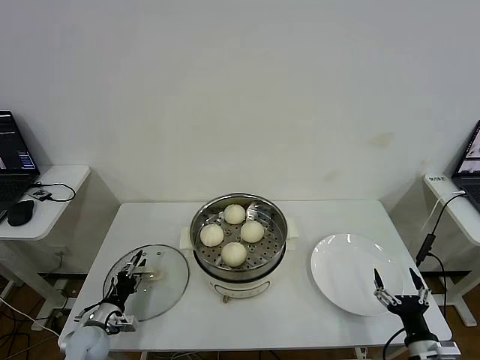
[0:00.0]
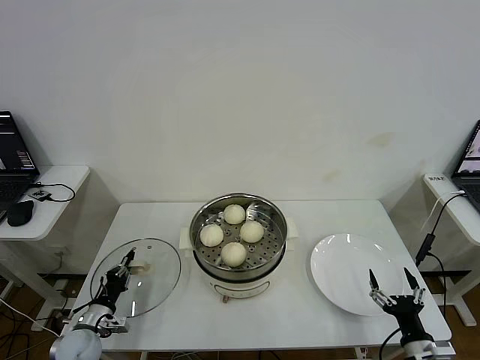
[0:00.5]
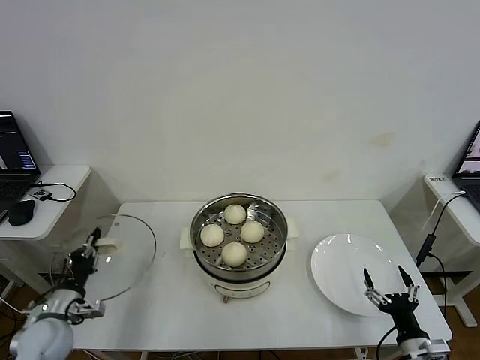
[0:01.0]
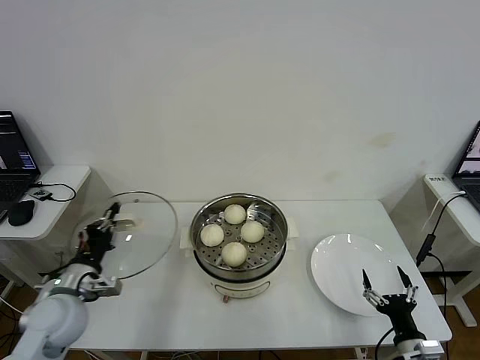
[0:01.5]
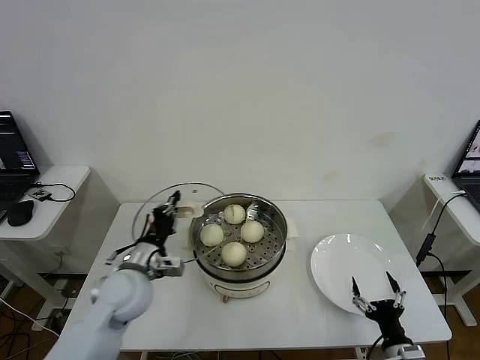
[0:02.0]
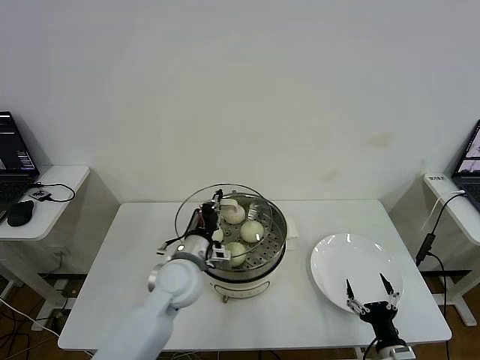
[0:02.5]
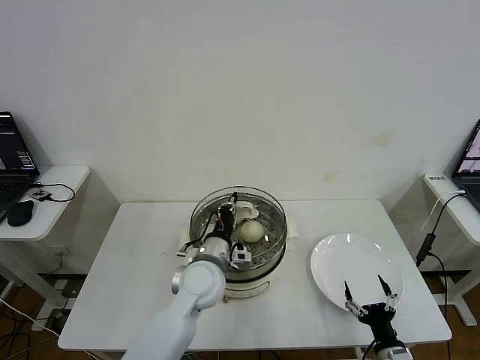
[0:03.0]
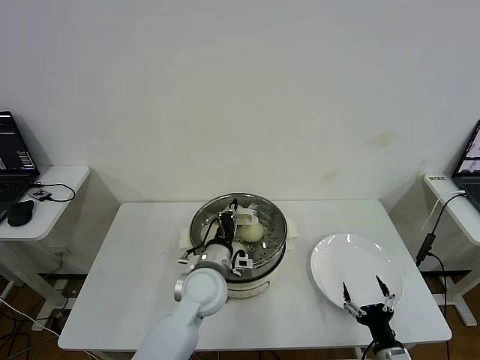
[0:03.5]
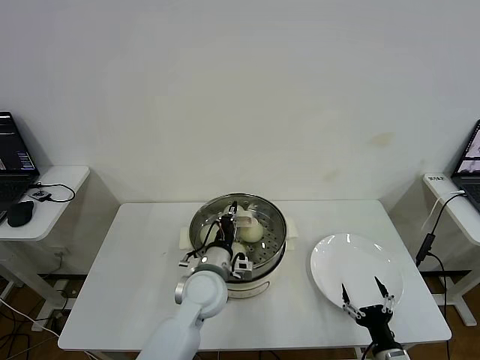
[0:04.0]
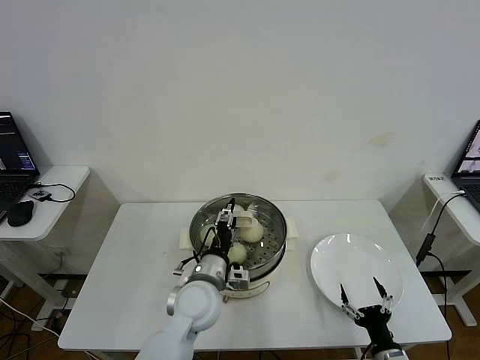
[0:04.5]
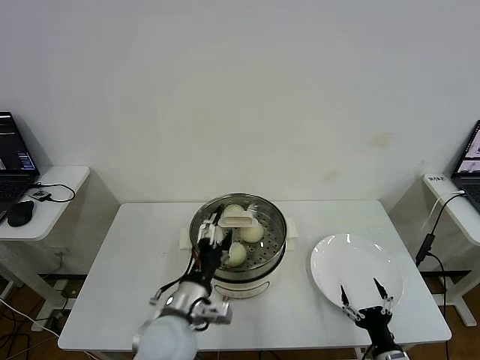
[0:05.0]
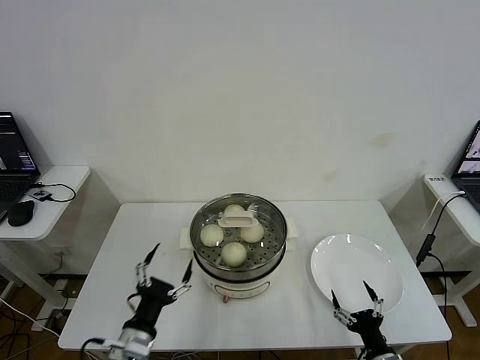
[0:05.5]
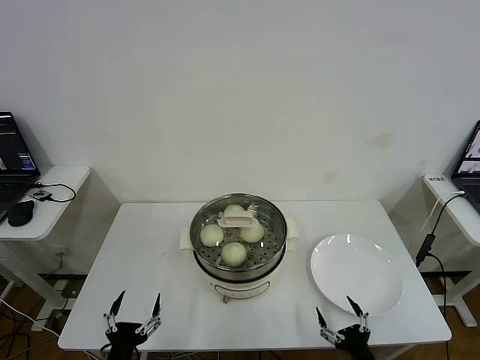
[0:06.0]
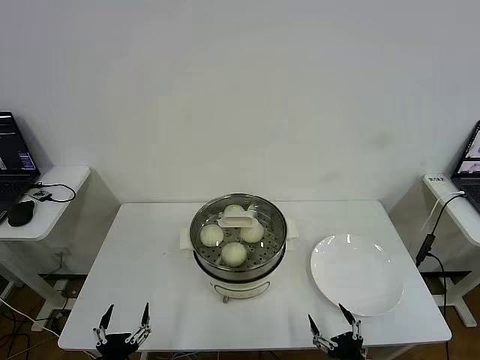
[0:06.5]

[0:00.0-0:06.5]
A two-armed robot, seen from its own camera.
Step, 0:01.0 to 0:04.5: Place the pot lid on the steamer with left gripper.
0:00.0 to 0:02.0: The left gripper moves upward and to the right, roughly 25 cm, and closes its fingers.
0:02.0 to 0:04.5: The left gripper travels to the right by approximately 15 cm, and opens up.
0:04.5 to 0:06.5: The left gripper is displaced backward, to the left and downward by about 30 cm, and opens its fingers; the right gripper ends up about 5 cm from where it was.

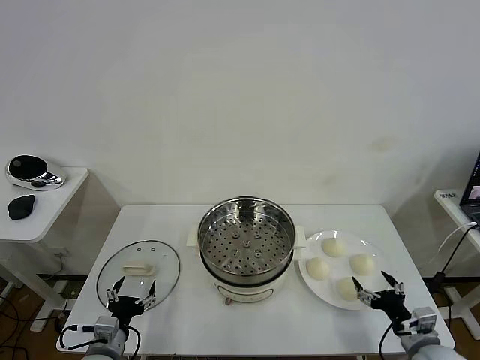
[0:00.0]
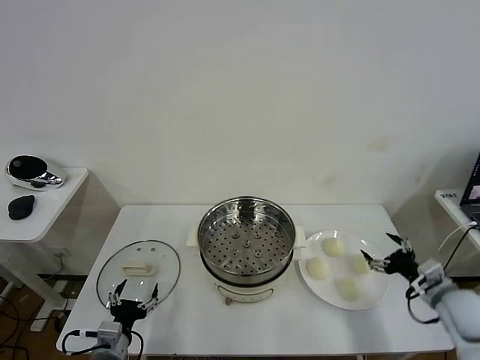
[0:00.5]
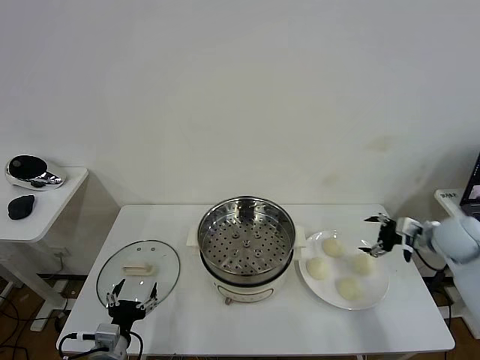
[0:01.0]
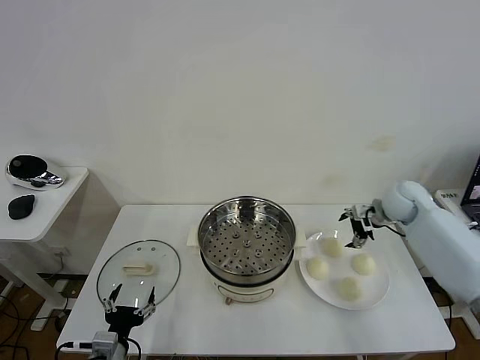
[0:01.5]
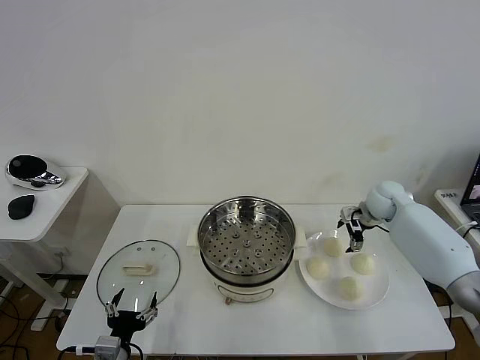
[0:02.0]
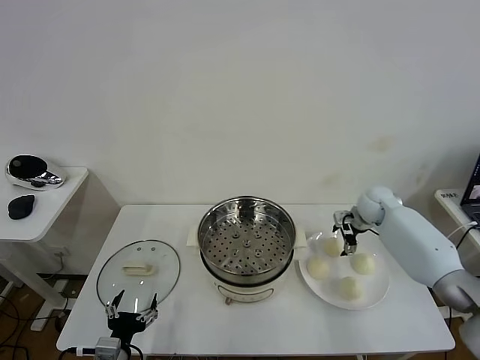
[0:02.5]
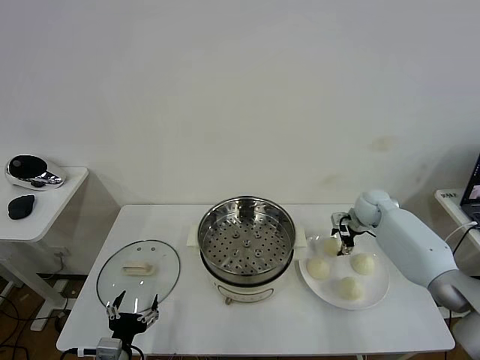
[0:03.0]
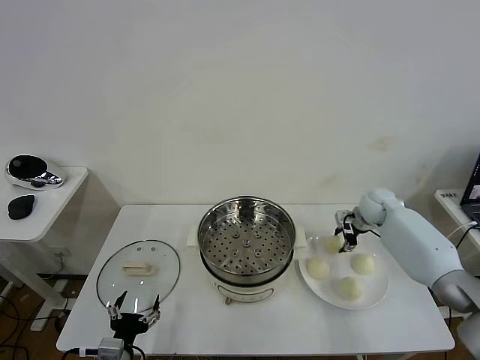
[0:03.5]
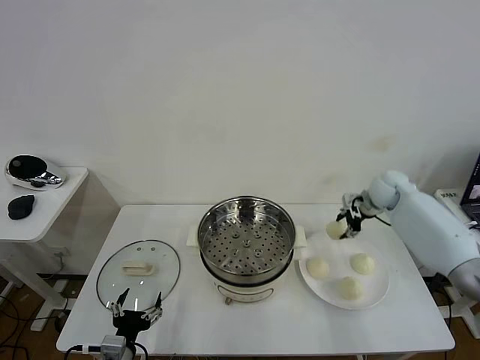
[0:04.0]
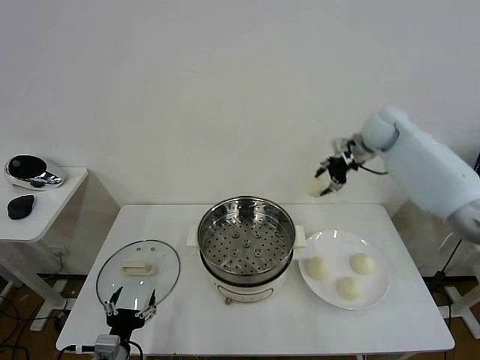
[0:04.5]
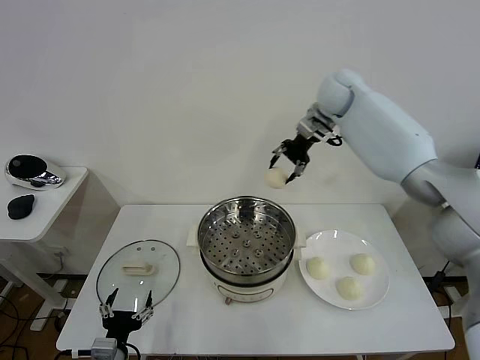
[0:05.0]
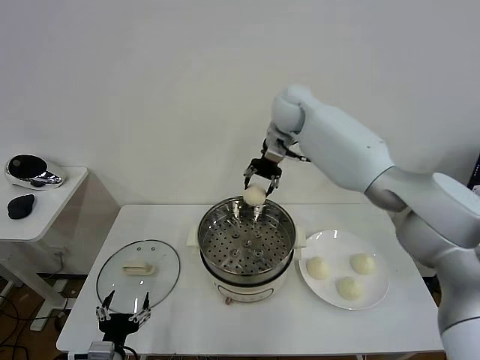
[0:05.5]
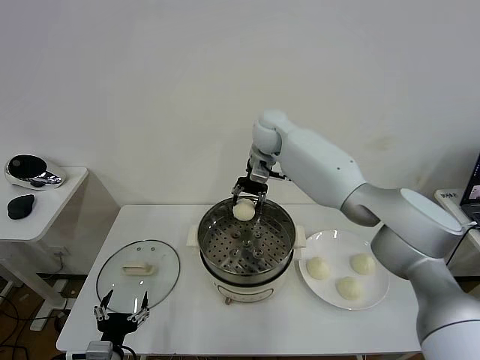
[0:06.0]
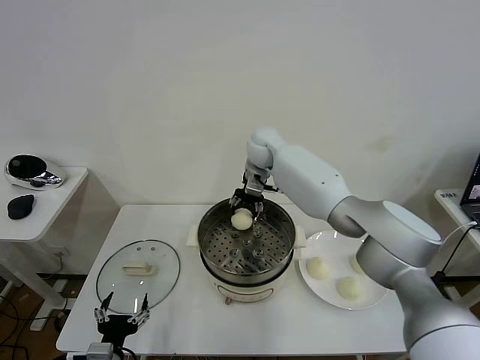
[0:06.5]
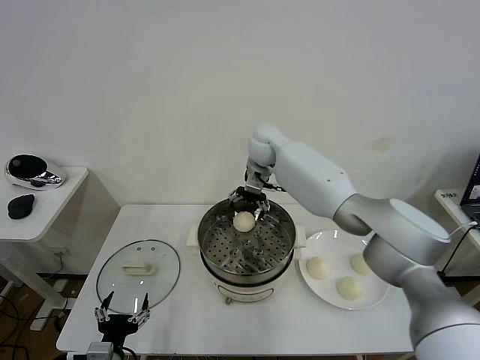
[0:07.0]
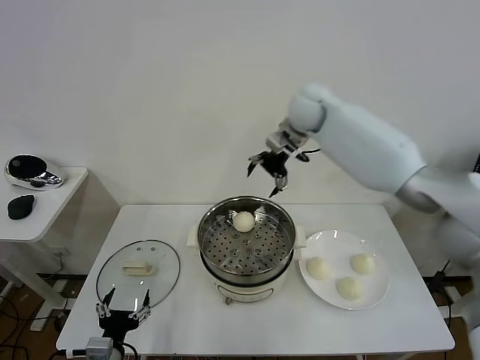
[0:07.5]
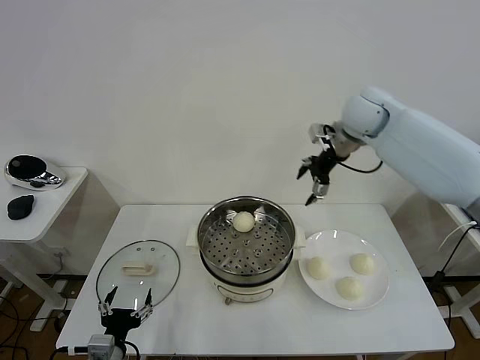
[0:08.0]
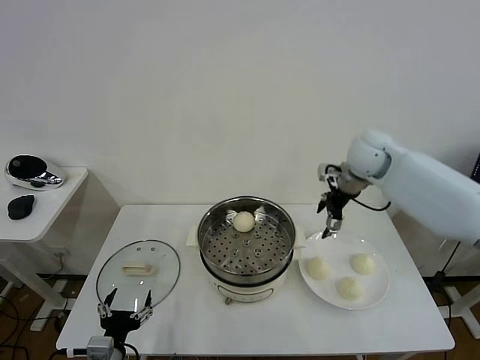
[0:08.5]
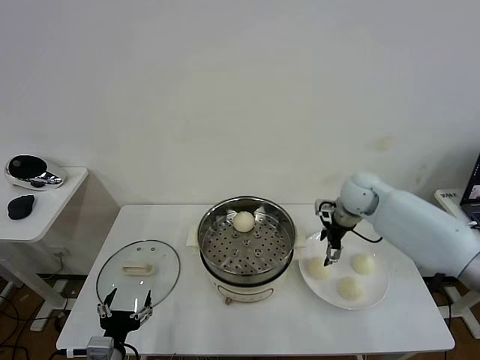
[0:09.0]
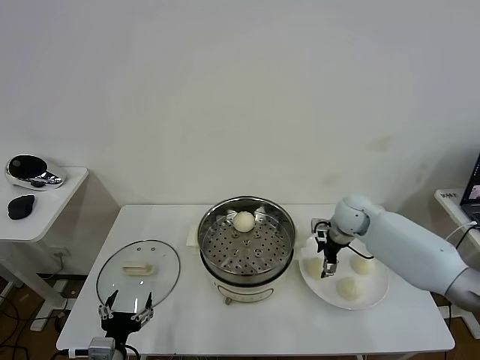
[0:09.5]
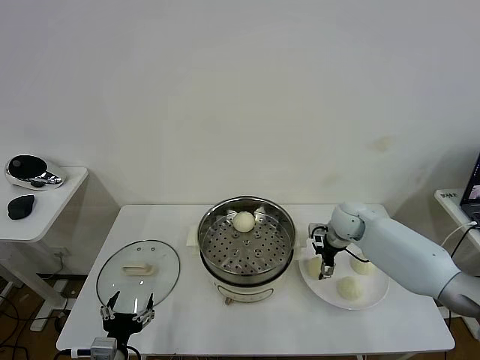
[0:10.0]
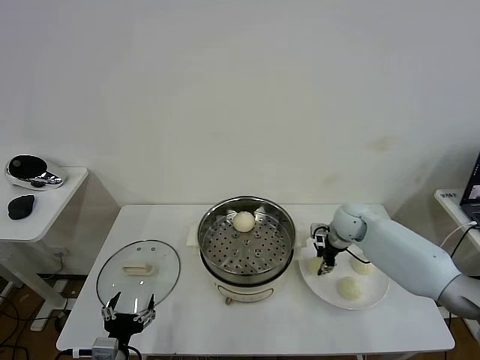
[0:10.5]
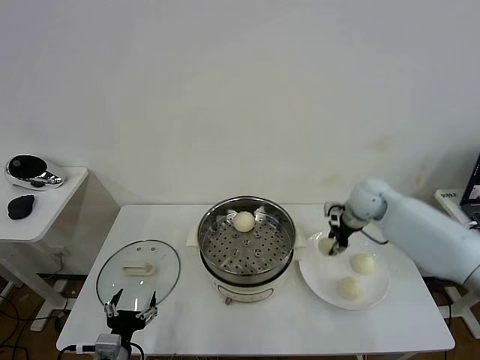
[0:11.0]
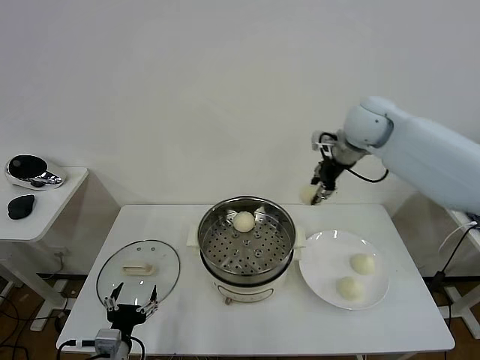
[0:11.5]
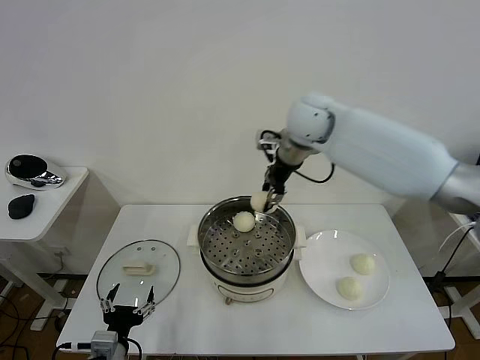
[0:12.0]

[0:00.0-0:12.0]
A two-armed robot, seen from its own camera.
Step, 0:00.0 to 0:03.0: Grasp the baozi in the plate with right gripper.
Step, 0:03.5 to 0:06.5: Place the baozi on the steamer with right gripper.
Step, 0:07.0 to 0:10.5: Grasp the baozi in the plate with right gripper.
0:02.0 to 0:04.0: The right gripper moves upward, about 5 cm, and closes up.
0:04.0 to 0:06.0: The right gripper shifts approximately 30 cm to the left.
0:06.0 to 0:08.0: The right gripper heads to the right, covering roughly 20 cm, and opens up.
0:08.0 to 0:10.0: The right gripper is displaced downward by roughly 25 cm.
0:10.0 to 0:12.0: The right gripper moves upward and to the left, roughly 30 cm, and closes its fingers.

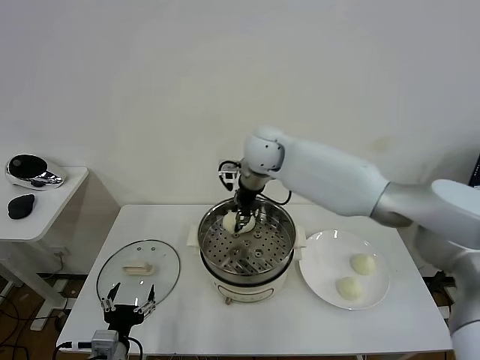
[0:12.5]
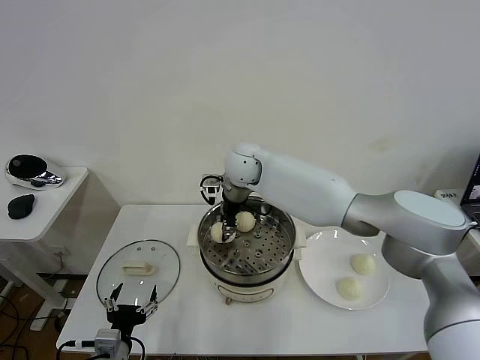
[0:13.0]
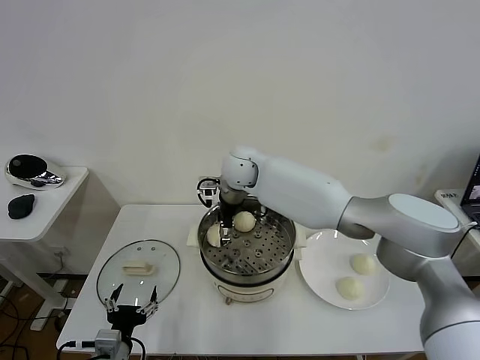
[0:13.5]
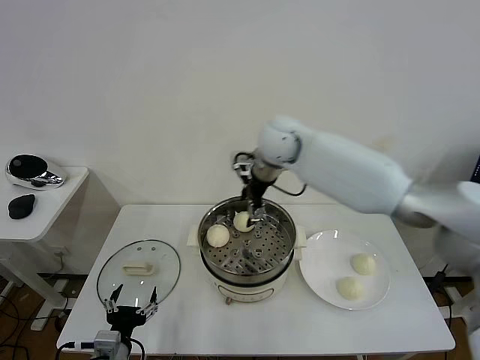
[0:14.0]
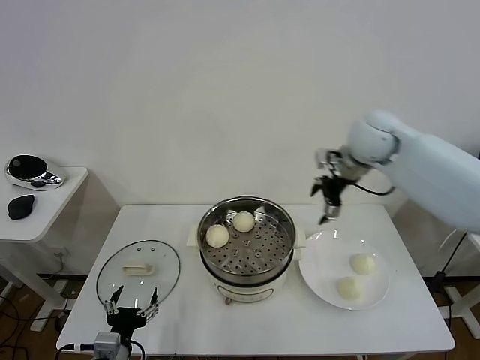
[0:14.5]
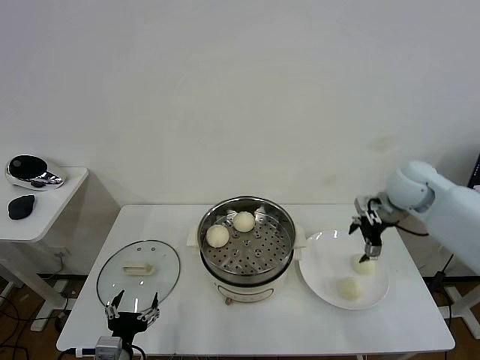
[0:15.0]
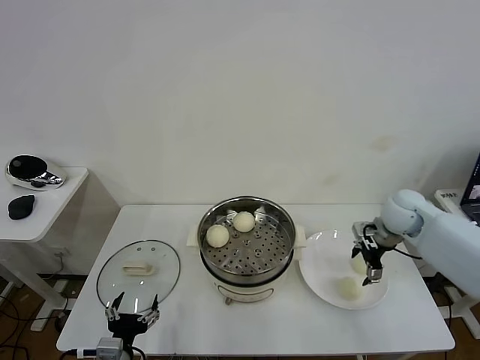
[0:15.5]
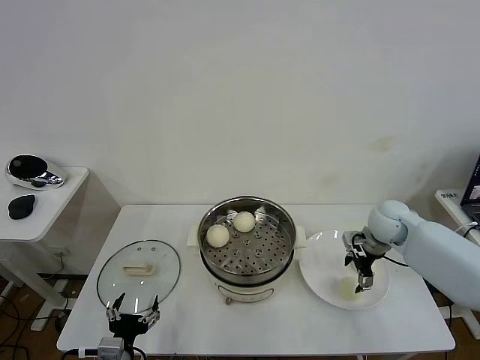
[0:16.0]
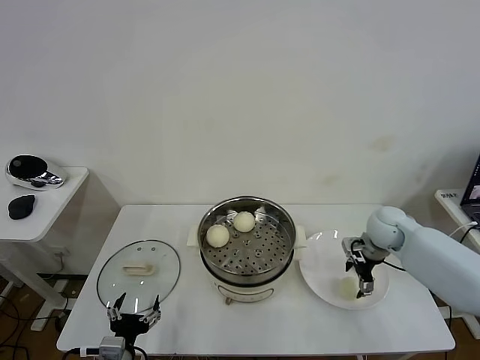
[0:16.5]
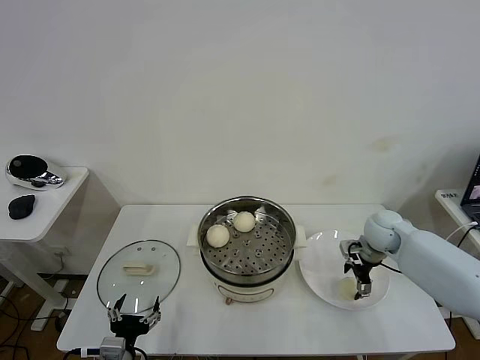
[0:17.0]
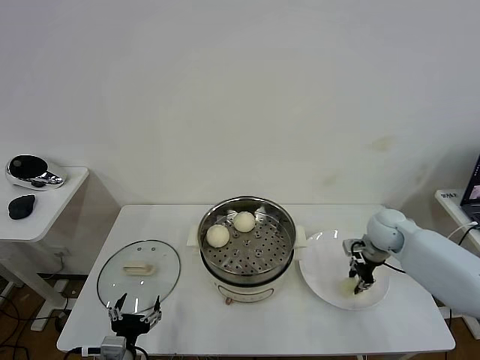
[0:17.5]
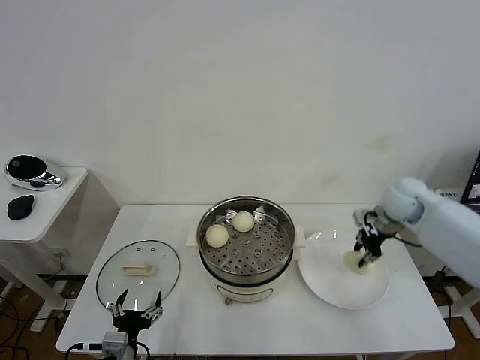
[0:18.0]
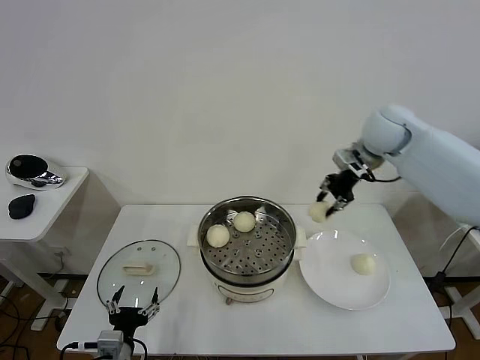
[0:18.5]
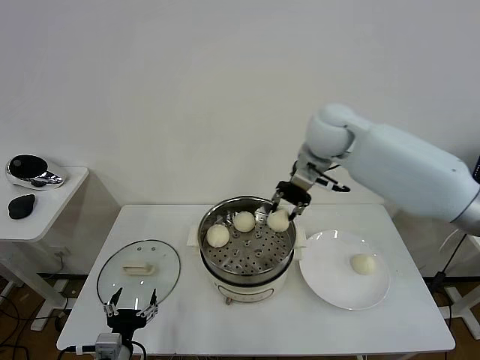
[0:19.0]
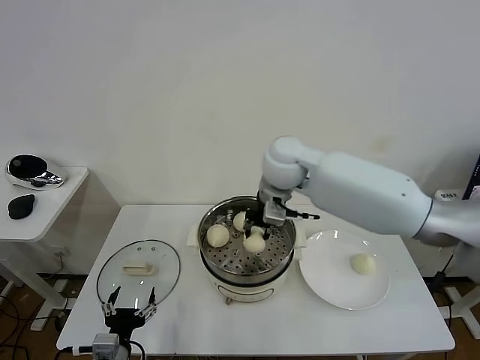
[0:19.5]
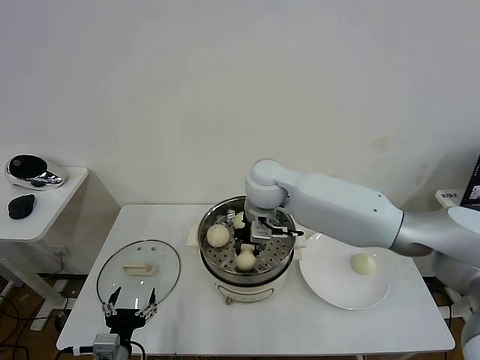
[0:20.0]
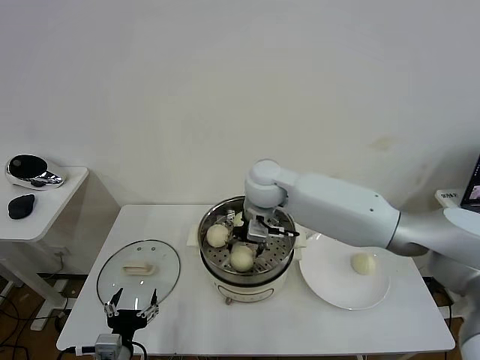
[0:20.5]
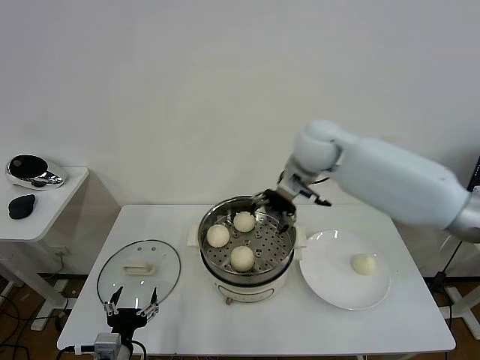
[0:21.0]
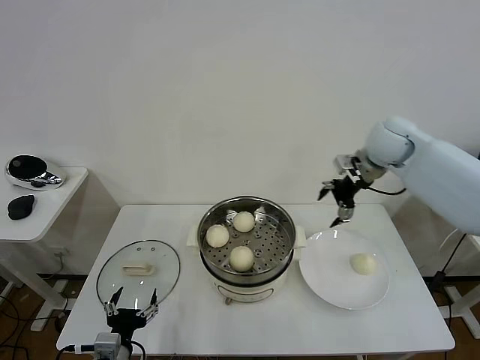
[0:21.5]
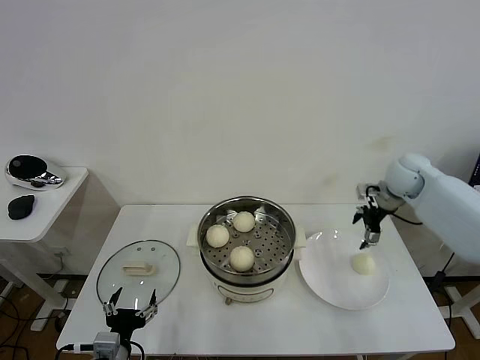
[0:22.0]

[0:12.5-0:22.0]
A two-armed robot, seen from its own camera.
Step, 0:14.0 to 0:17.5: Grasp the baozi in the plate with right gripper.
Step, 0:18.0 to 0:20.5: Place the baozi on the steamer with right gripper.
0:12.5 to 0:14.5: The right gripper is displaced to the right by some 25 cm, and opens up.
0:14.5 to 0:16.5: The right gripper goes some 20 cm downward.
0:16.5 to 0:18.0: The right gripper is displaced upward by some 10 cm, and closes up.
0:18.0 to 0:20.0: The right gripper moves to the left, roughly 30 cm.
0:20.0 to 0:22.0: The right gripper shifts roughly 35 cm to the right, and opens up.
